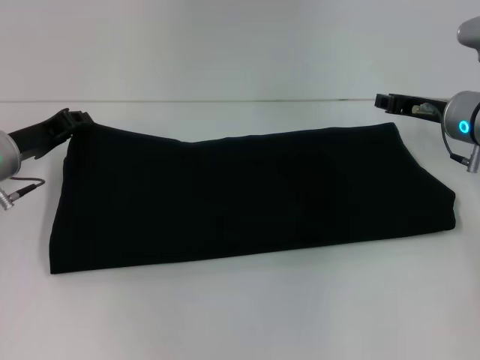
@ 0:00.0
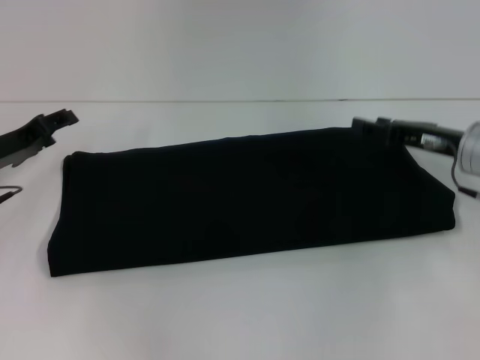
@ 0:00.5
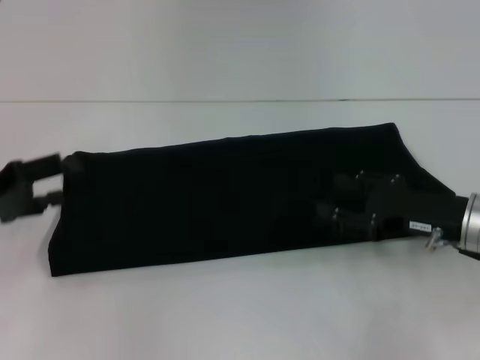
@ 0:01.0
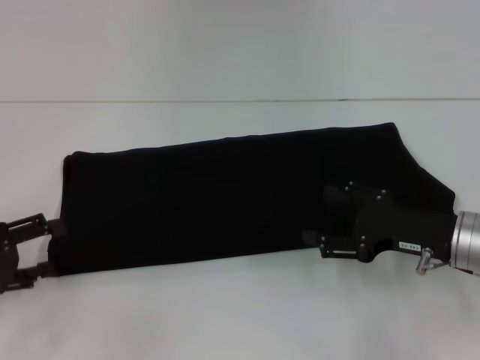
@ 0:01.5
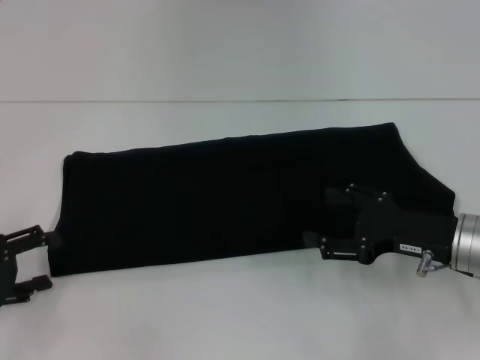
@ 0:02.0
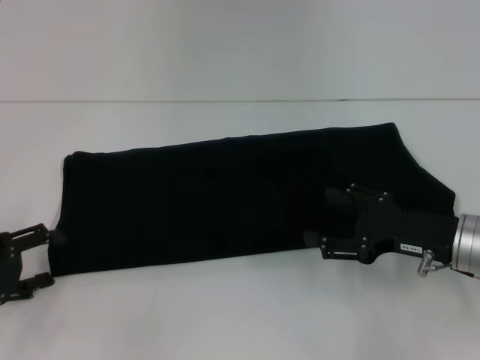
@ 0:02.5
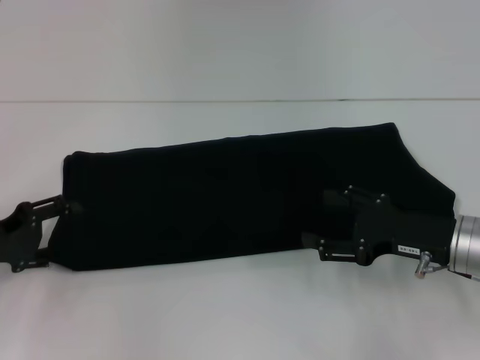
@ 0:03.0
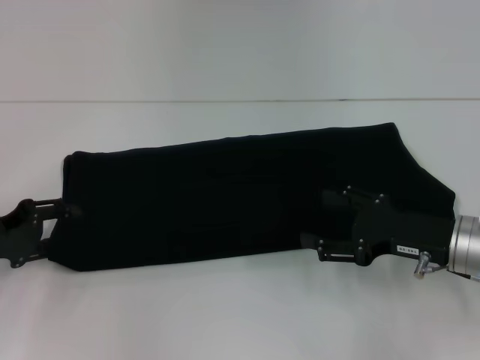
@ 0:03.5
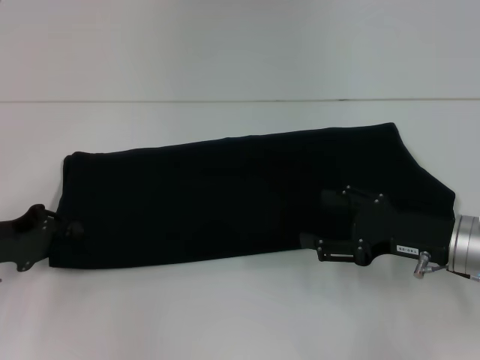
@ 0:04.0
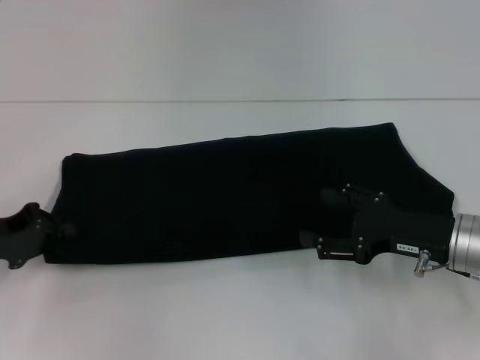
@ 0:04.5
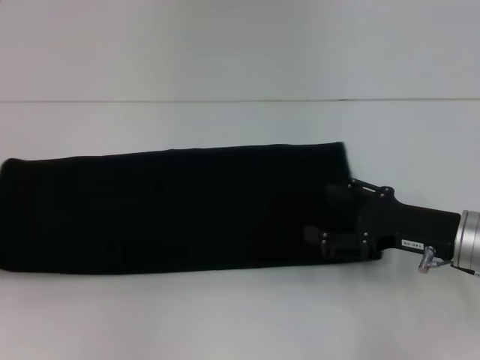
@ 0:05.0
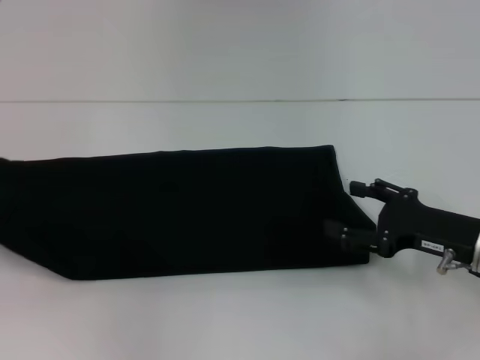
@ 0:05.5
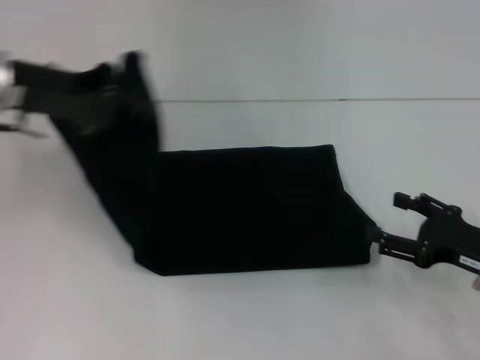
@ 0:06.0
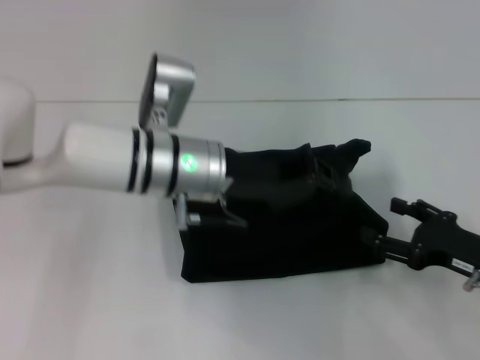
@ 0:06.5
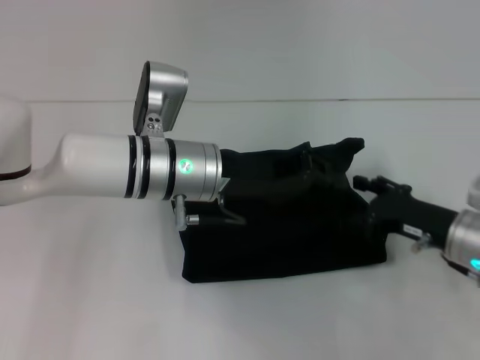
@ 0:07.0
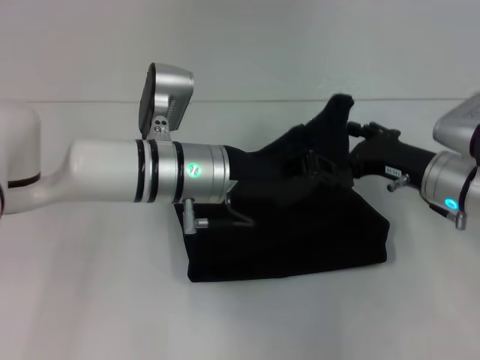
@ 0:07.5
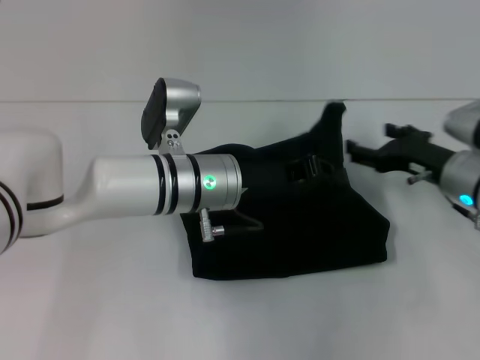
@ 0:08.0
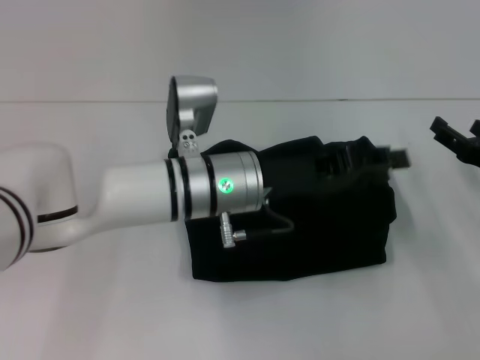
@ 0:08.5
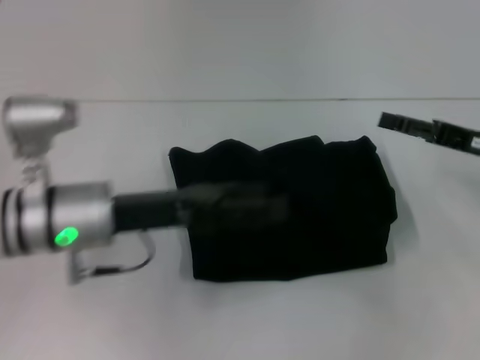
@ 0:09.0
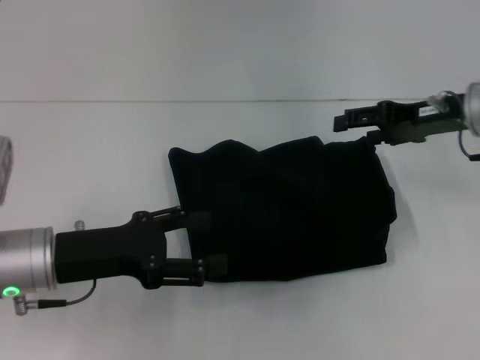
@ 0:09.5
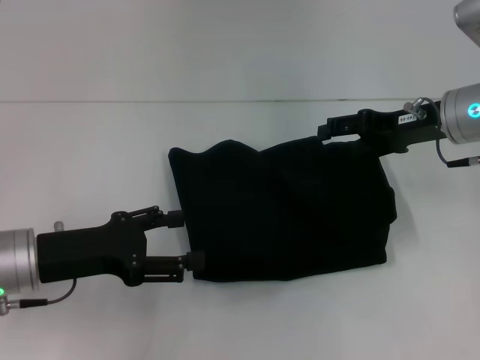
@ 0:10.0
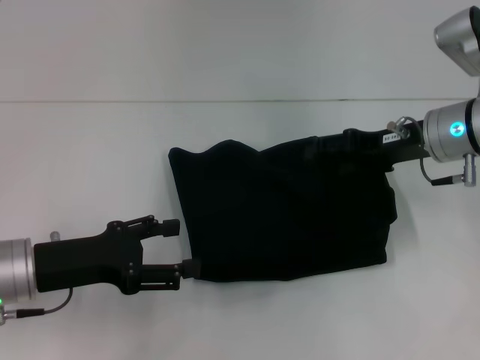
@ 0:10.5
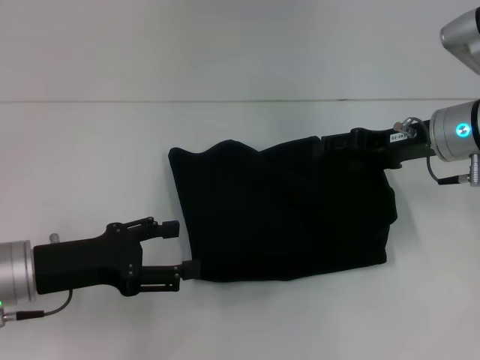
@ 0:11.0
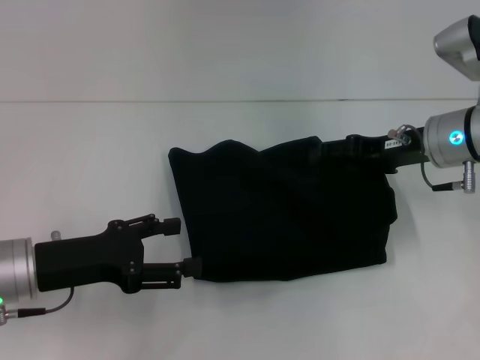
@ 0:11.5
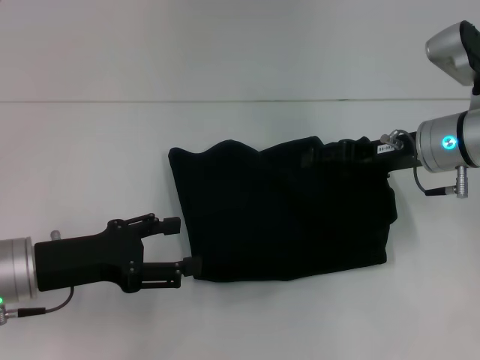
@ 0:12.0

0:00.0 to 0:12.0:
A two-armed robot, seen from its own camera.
Step, 0:00.0 to 0:08.5: Fold the clothes with your left hand.
0:00.0 to 0:02.0: The left gripper travels backward and to the left by about 15 cm, and opens. The right gripper shifts about 15 cm backward, and opens its fingers.
0:02.0 to 0:04.0: The left gripper heads forward, covering about 5 cm, and closes up.
0:04.0 to 0:06.0: The right gripper shifts about 5 cm to the right; the left gripper moves upward, forward and to the right, some 20 cm, and closes.
0:06.0 to 0:08.0: The left gripper is displaced to the right and downward by roughly 20 cm. The right gripper is displaced forward by approximately 10 cm.
0:08.0 to 0:10.0: The right gripper is displaced upward by roughly 10 cm. Meanwhile the left gripper travels to the left and backward by approximately 20 cm, and opens its fingers.
0:10.0 to 0:12.0: The grippers stay close to where they were, moving slightly.

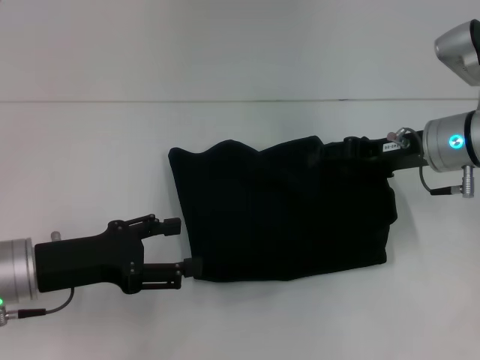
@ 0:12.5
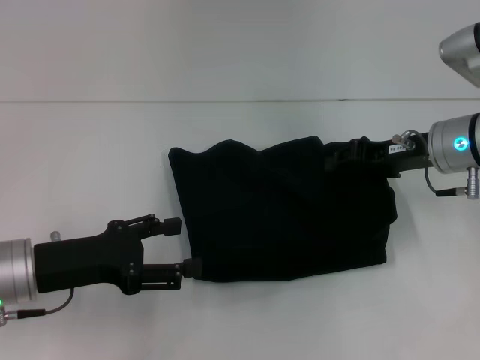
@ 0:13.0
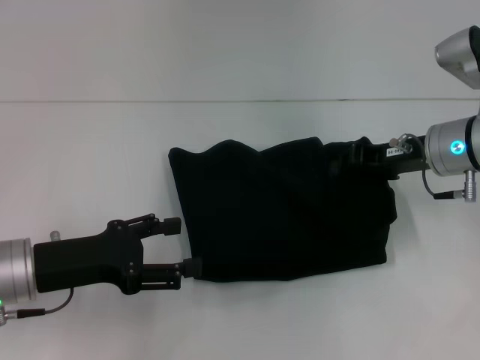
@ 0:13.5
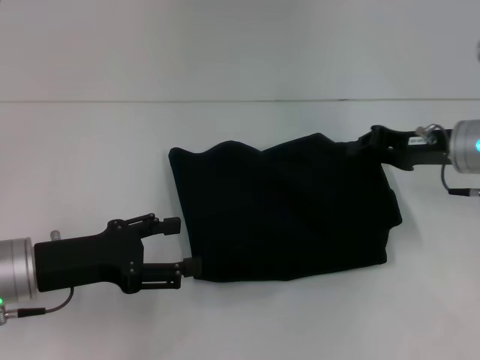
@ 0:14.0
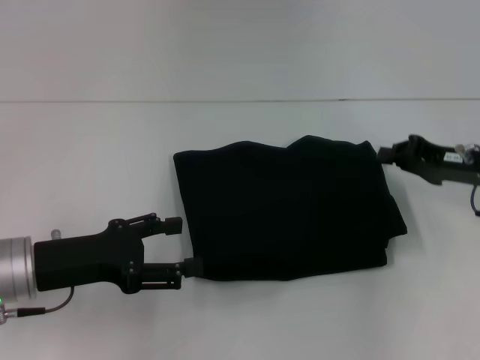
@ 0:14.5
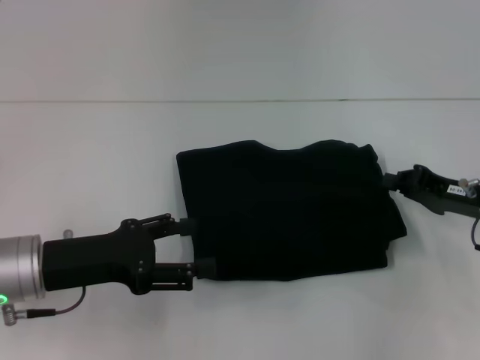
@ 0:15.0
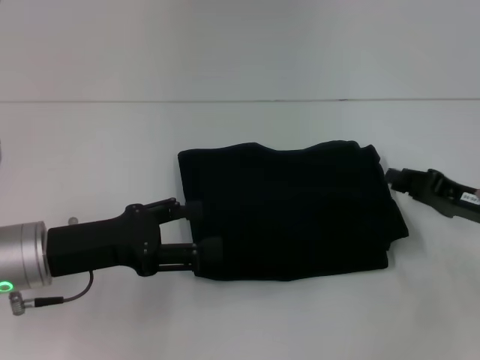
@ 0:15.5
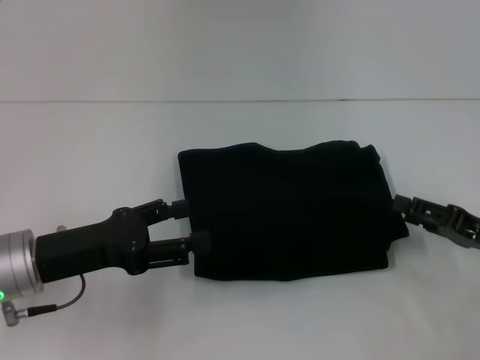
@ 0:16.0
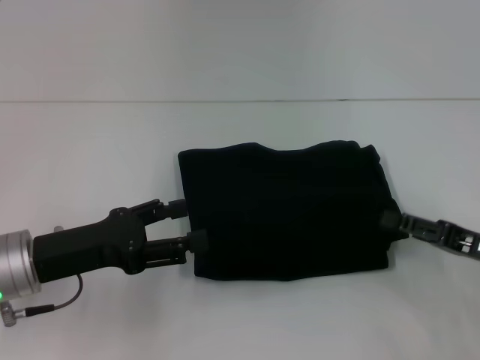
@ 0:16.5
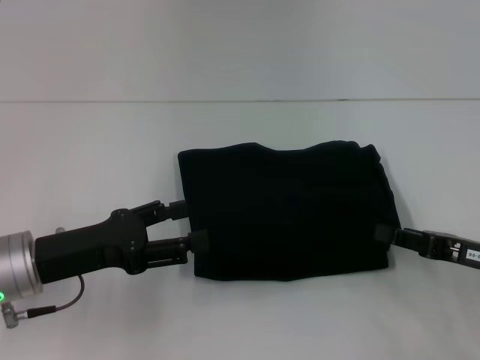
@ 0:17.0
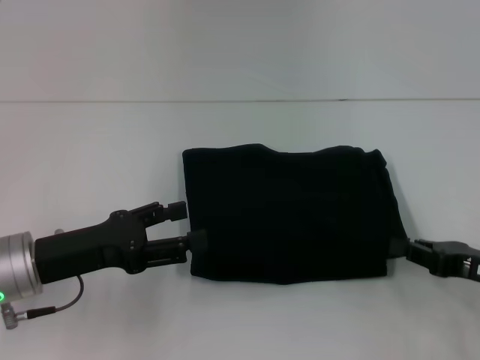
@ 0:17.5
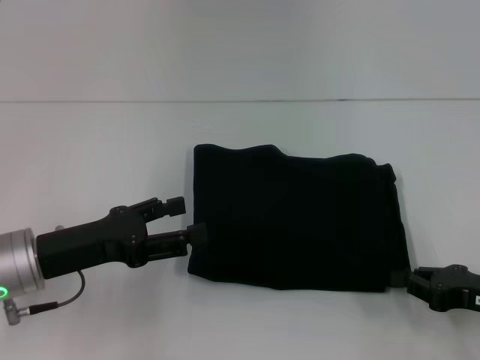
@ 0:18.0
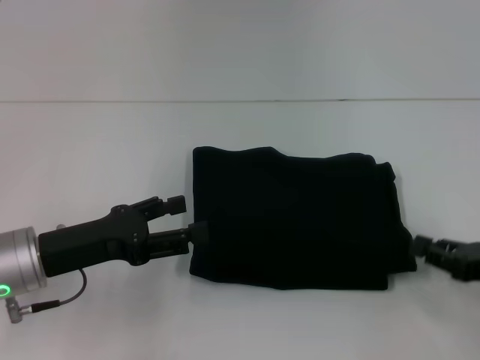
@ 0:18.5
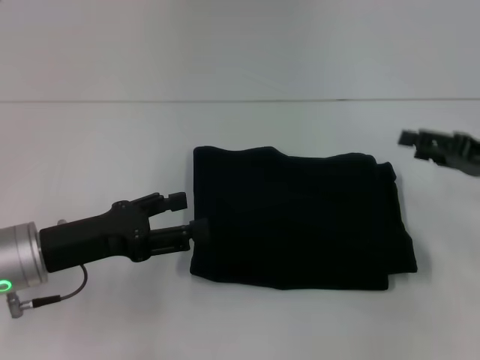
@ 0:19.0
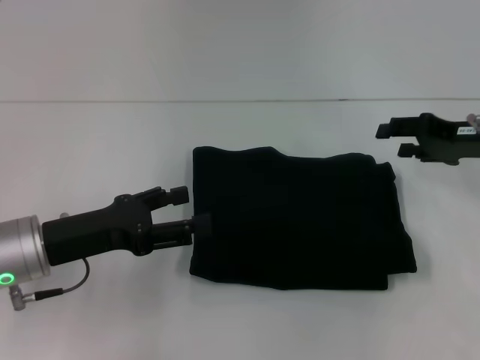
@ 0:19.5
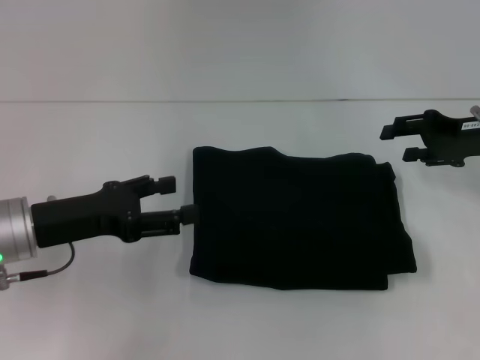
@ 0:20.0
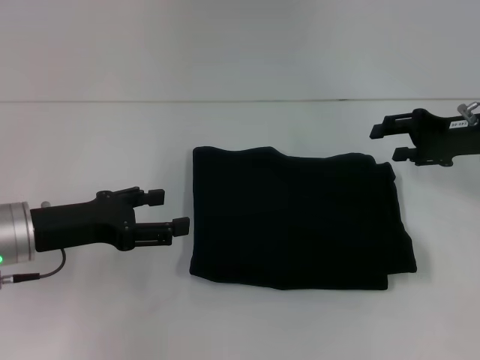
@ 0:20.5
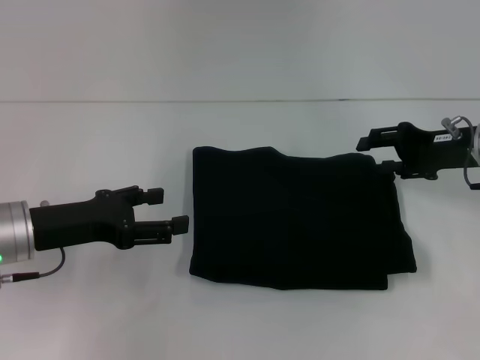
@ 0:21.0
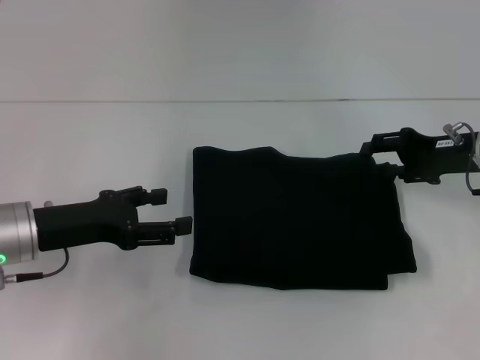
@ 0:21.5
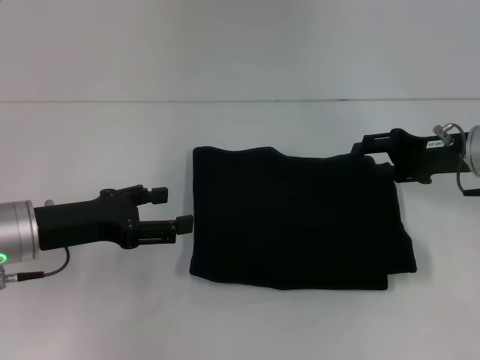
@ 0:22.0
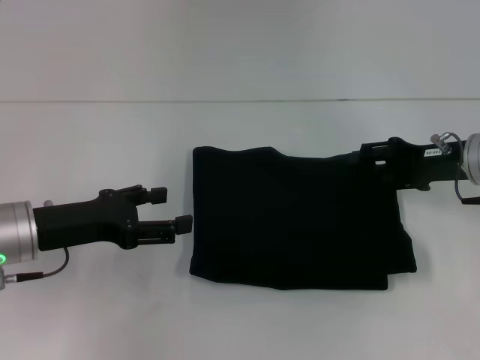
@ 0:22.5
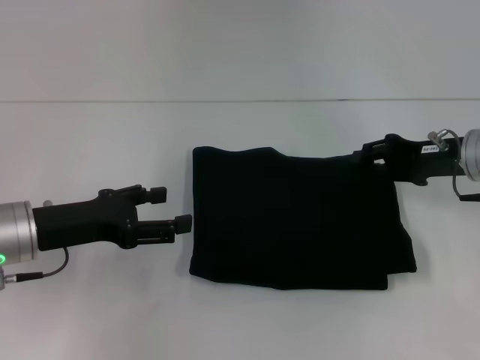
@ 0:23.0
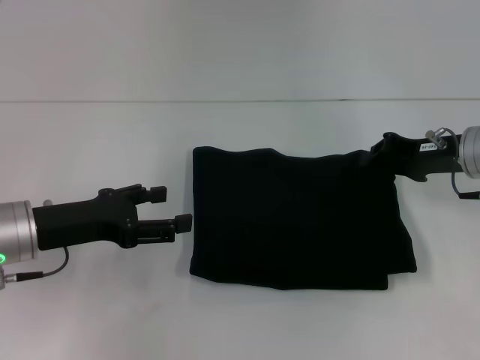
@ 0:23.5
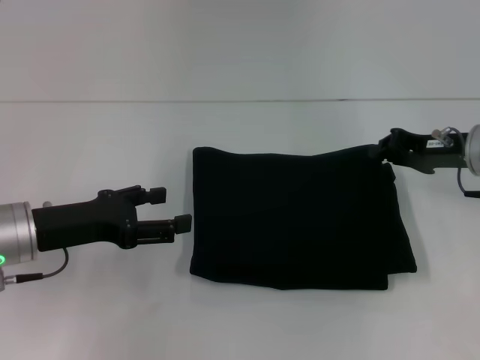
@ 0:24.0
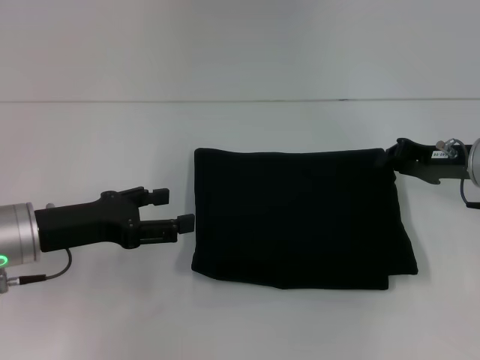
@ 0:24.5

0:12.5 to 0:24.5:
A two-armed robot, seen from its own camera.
0:12.5 to 0:14.5: The right gripper moves to the right, about 5 cm, and closes up.
0:14.5 to 0:16.5: The right gripper is displaced backward by roughly 10 cm, and opens.
0:16.5 to 0:18.5: The right gripper closes.
0:18.5 to 0:20.5: The right gripper is displaced forward and upward by roughly 15 cm, and opens.
0:20.5 to 0:22.5: There are only small adjustments of the grippers.
0:22.5 to 0:24.5: The right gripper closes its fingers.

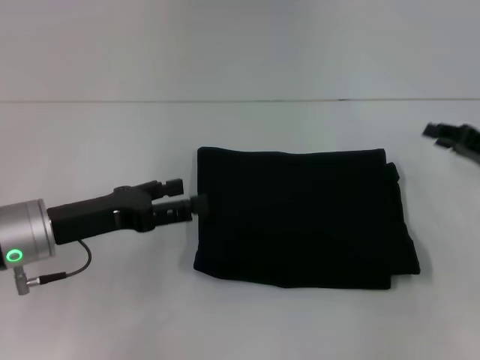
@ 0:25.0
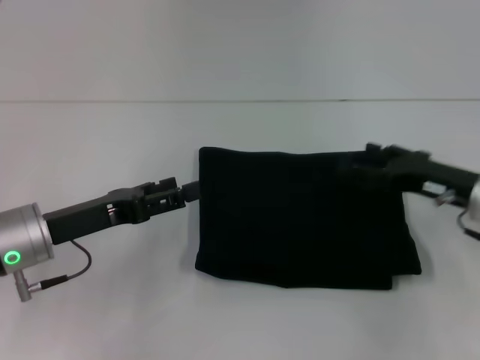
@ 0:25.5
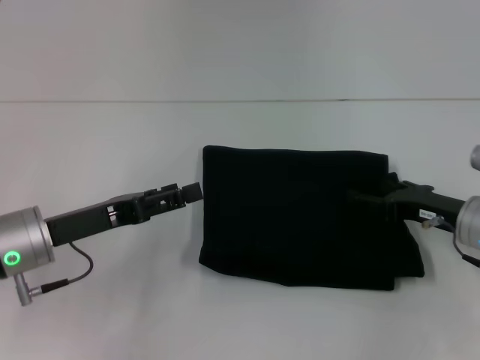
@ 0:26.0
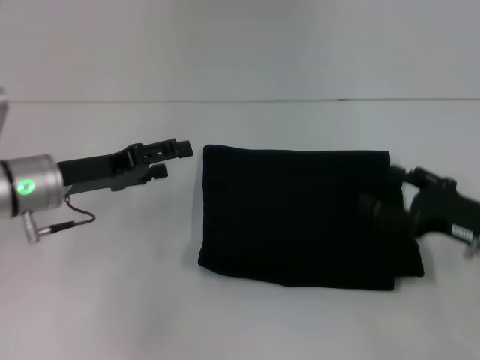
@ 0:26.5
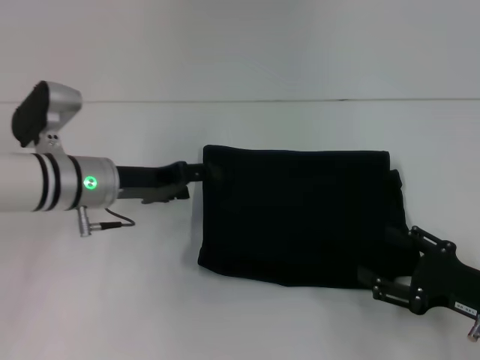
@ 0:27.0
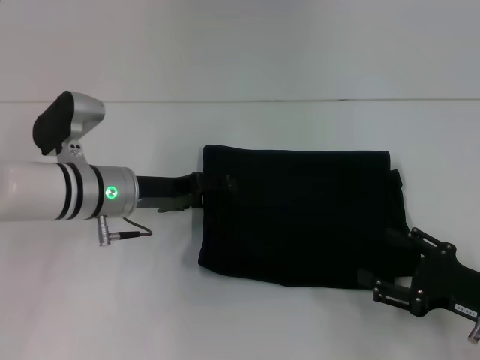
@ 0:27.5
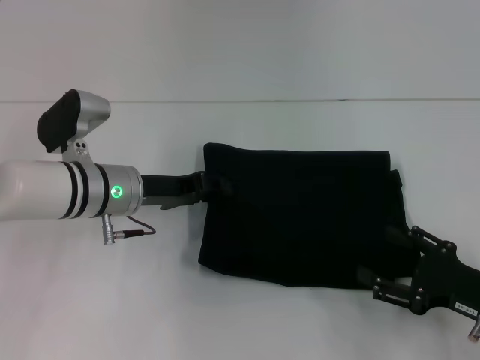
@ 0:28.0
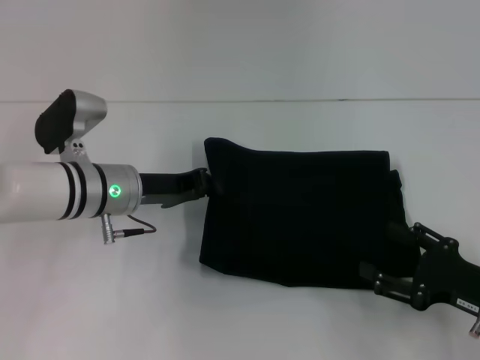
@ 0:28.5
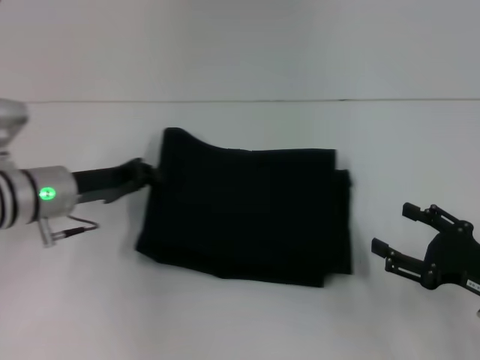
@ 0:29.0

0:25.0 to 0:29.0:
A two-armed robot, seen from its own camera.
0:25.0 to 0:27.0: The left gripper goes roughly 10 cm forward; the right gripper shifts roughly 15 cm backward and downward, and opens its fingers.
0:27.0 to 0:29.0: The left gripper closes its fingers.
